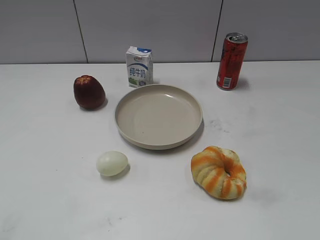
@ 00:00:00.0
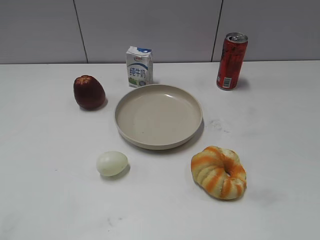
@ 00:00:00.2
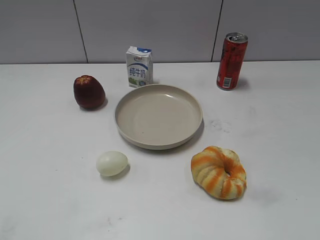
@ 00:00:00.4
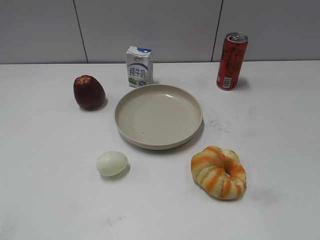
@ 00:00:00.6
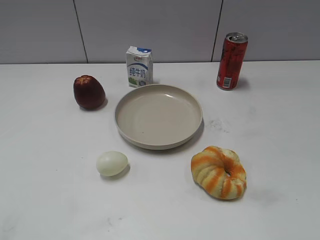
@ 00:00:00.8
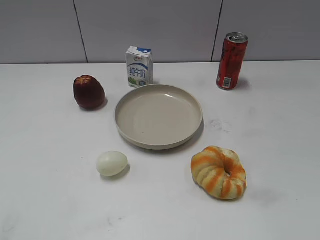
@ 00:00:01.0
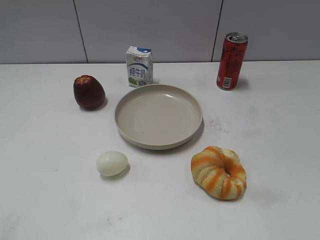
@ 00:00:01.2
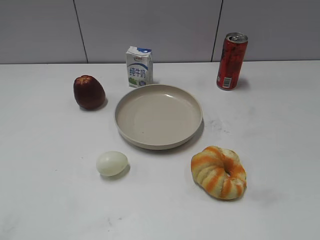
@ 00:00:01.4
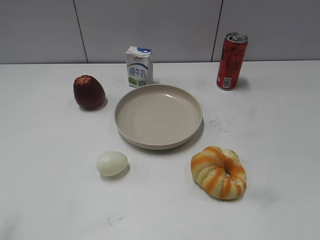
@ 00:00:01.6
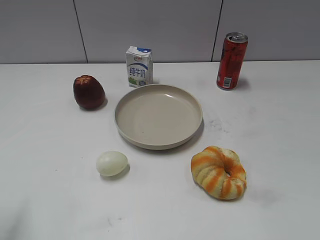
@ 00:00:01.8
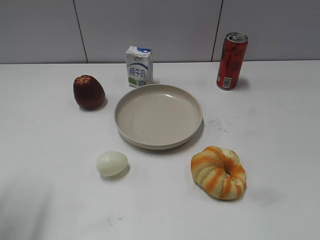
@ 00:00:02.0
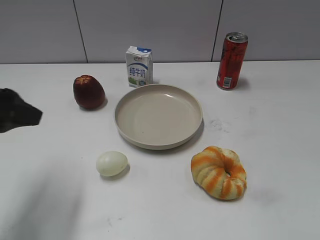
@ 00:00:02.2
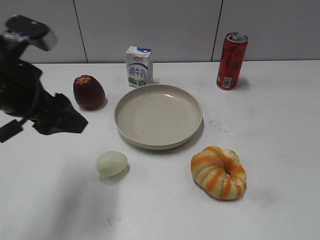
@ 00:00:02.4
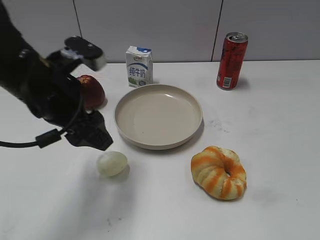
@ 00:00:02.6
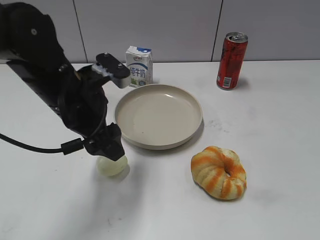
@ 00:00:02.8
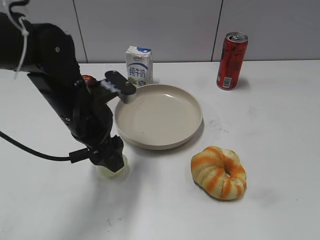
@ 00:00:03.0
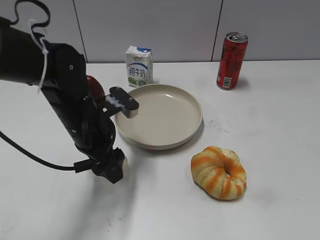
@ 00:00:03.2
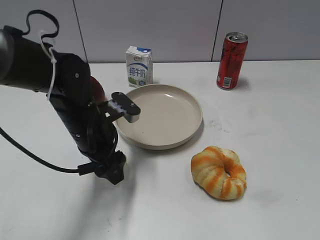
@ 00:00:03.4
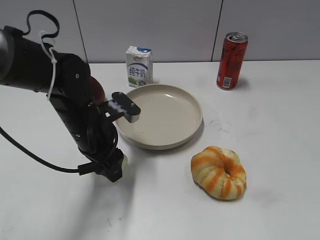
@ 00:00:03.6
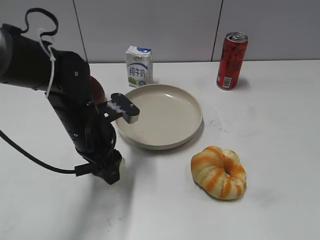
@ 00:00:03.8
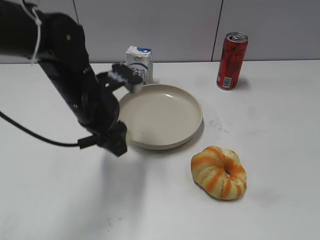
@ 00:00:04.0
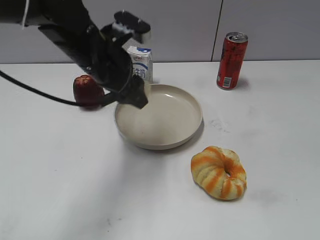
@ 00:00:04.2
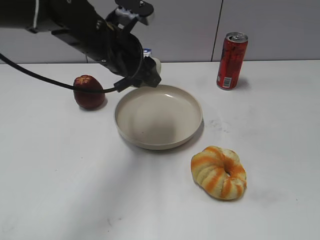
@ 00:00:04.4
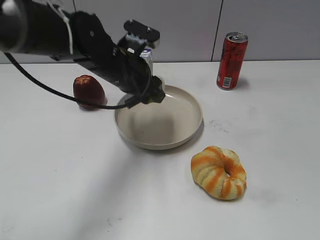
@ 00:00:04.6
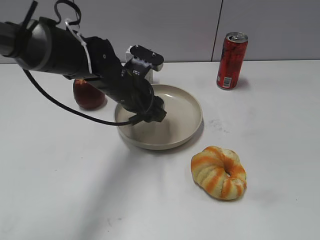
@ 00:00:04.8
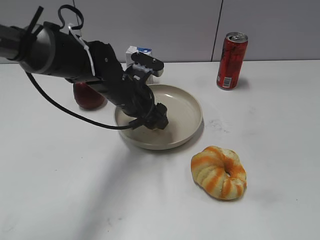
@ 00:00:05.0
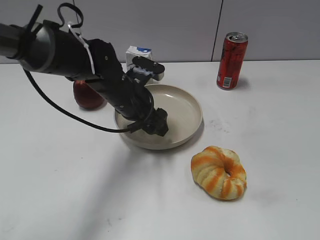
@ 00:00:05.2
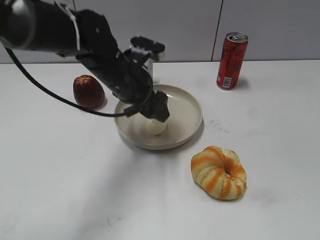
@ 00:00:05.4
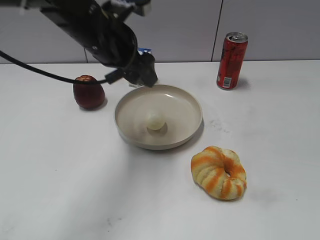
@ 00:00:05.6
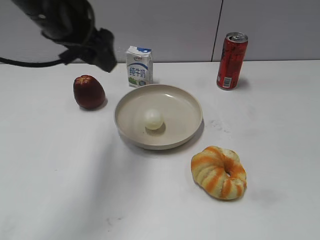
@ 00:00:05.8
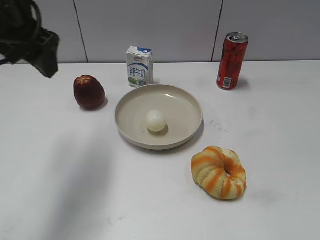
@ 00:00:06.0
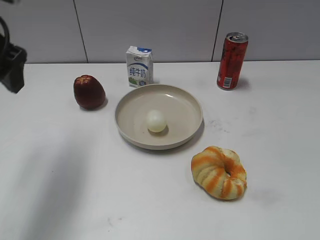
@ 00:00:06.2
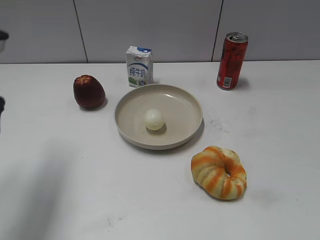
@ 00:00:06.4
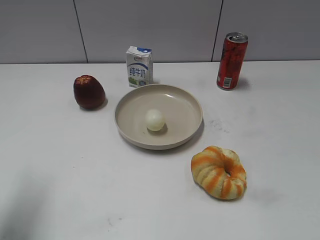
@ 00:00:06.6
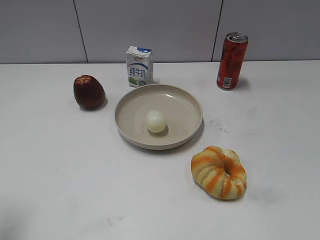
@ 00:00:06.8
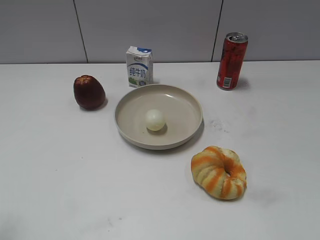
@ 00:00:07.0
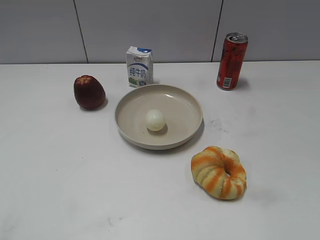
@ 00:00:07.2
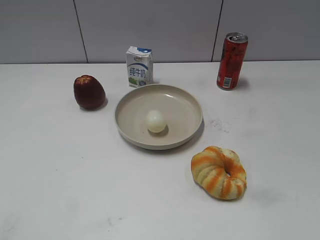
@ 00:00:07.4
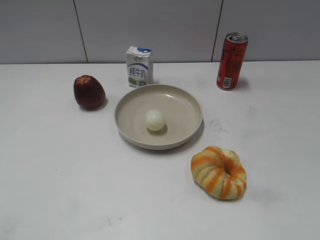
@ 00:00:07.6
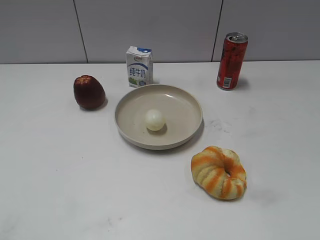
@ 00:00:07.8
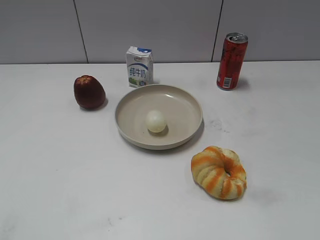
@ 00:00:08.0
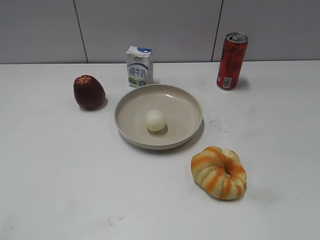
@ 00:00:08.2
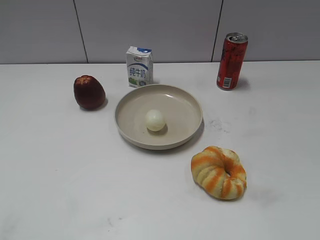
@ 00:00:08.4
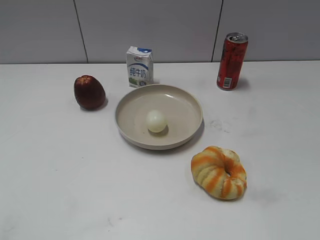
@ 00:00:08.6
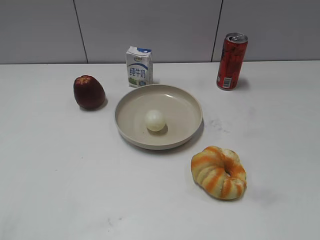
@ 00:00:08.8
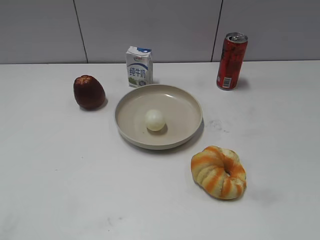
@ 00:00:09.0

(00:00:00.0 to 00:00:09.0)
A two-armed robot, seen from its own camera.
00:00:01.6 - 00:00:03.0: The left gripper moves forward and to the right, about 30 cm.
00:00:03.0 - 00:00:04.4: The left gripper travels forward by approximately 5 cm, goes downward and returns, some 5 cm each way, and closes its fingers.
00:00:04.4 - 00:00:06.0: The left gripper is displaced upward and to the left by roughly 10 cm, and opens its fingers.
00:00:06.0 - 00:00:07.6: The left gripper shifts roughly 35 cm backward and to the left, and closes up.
